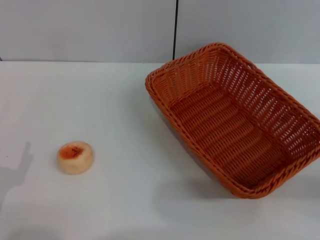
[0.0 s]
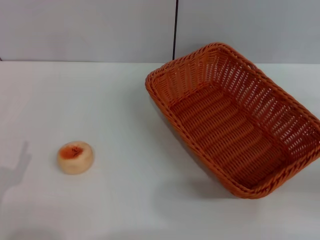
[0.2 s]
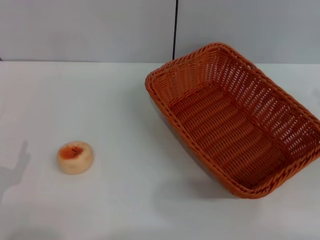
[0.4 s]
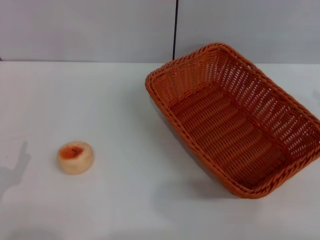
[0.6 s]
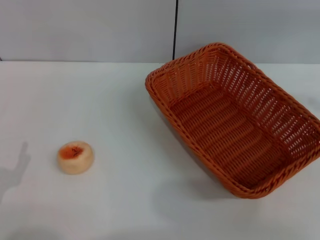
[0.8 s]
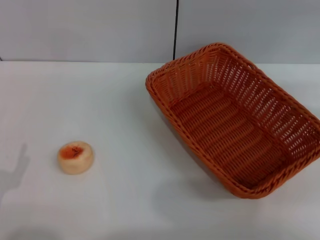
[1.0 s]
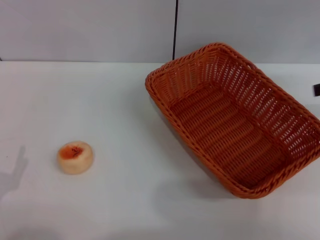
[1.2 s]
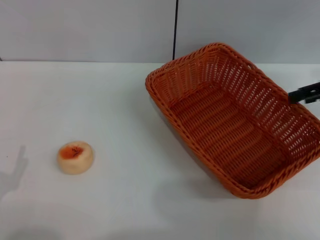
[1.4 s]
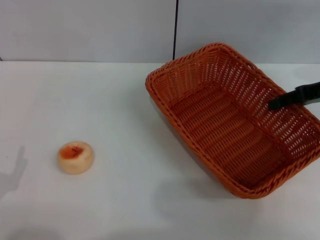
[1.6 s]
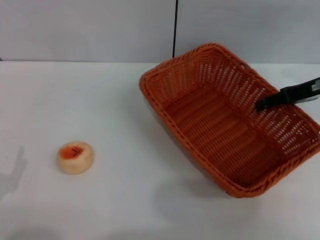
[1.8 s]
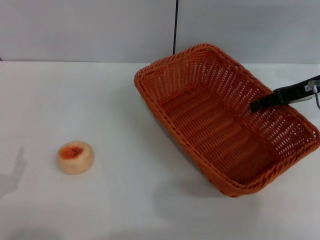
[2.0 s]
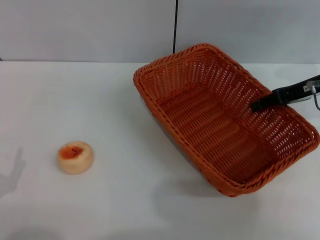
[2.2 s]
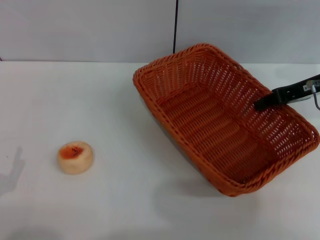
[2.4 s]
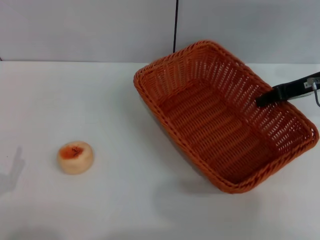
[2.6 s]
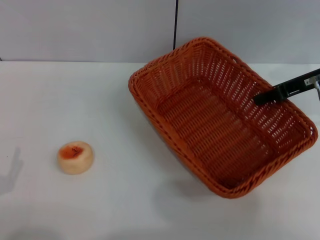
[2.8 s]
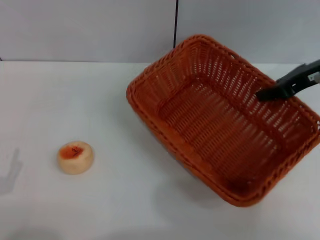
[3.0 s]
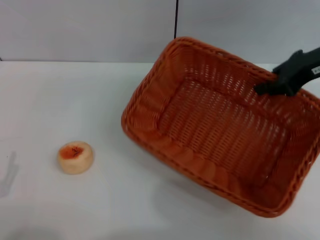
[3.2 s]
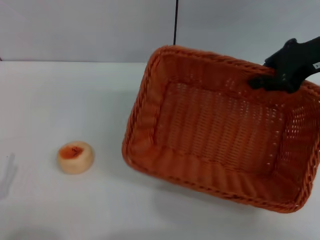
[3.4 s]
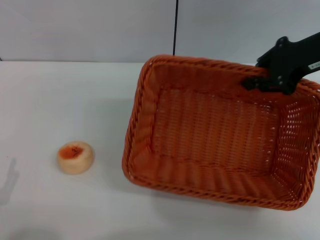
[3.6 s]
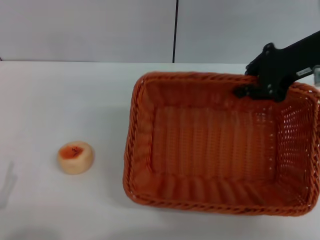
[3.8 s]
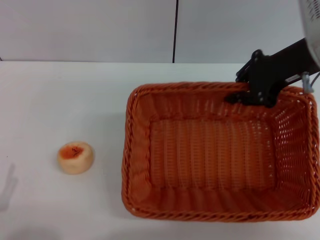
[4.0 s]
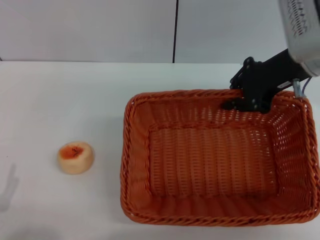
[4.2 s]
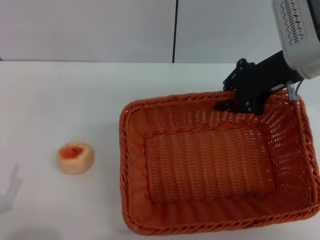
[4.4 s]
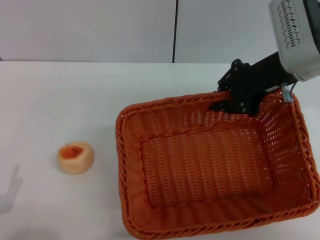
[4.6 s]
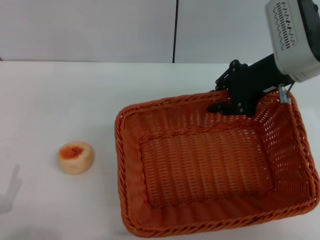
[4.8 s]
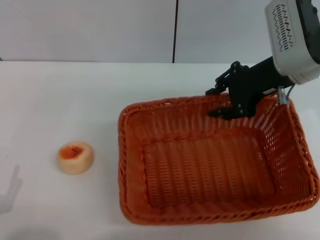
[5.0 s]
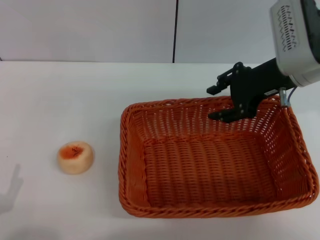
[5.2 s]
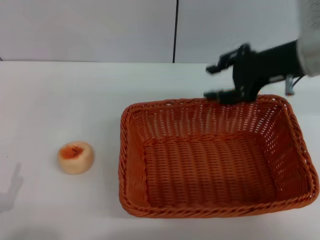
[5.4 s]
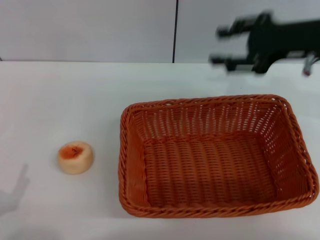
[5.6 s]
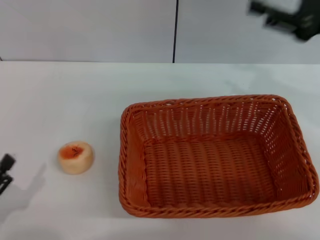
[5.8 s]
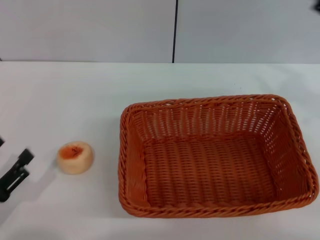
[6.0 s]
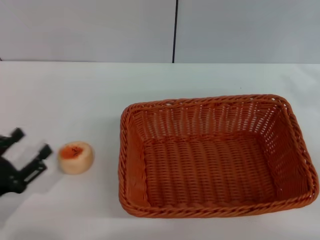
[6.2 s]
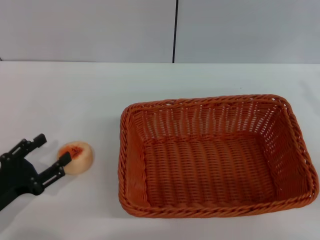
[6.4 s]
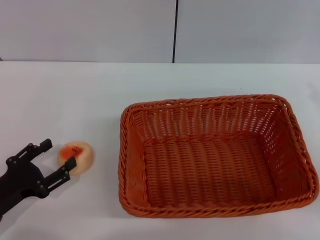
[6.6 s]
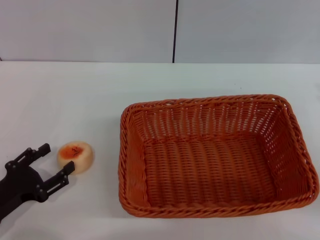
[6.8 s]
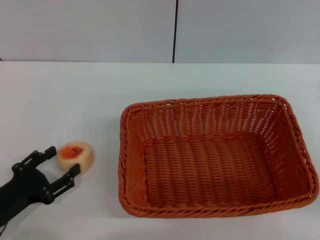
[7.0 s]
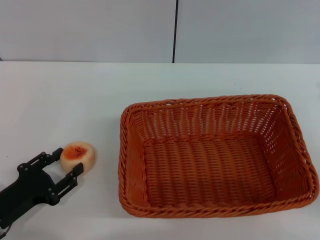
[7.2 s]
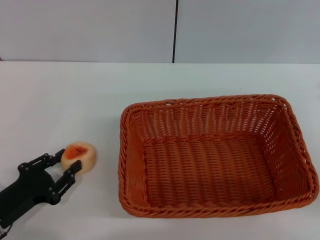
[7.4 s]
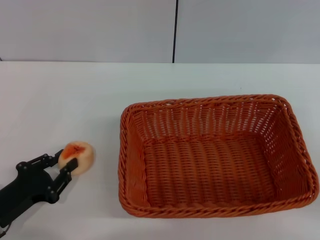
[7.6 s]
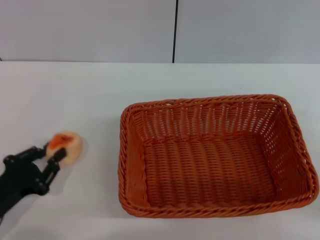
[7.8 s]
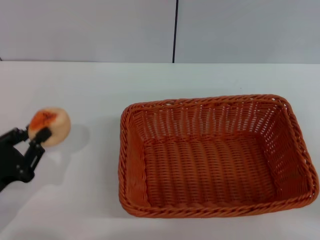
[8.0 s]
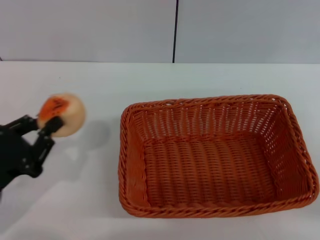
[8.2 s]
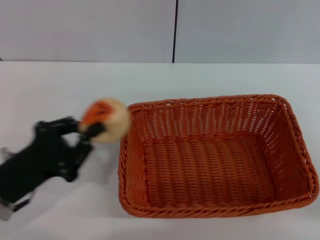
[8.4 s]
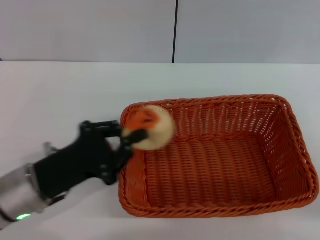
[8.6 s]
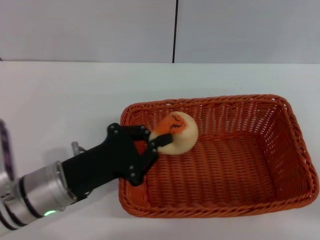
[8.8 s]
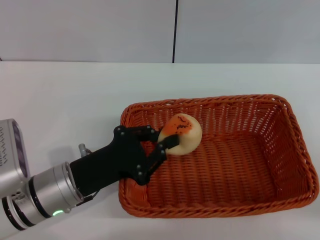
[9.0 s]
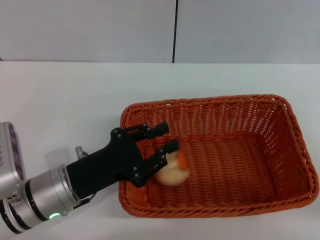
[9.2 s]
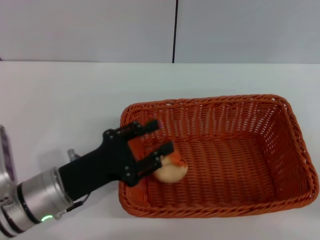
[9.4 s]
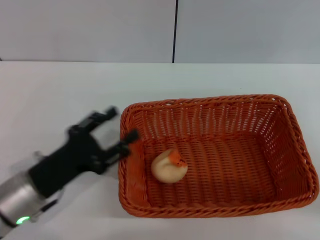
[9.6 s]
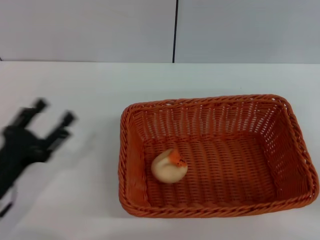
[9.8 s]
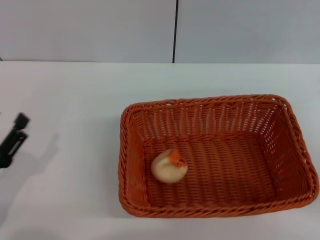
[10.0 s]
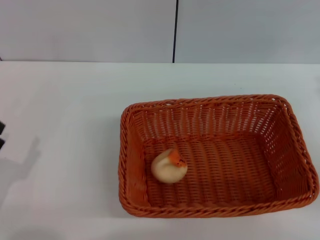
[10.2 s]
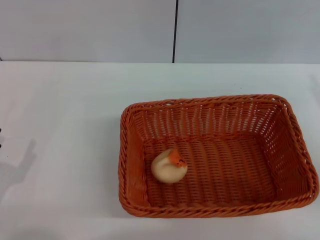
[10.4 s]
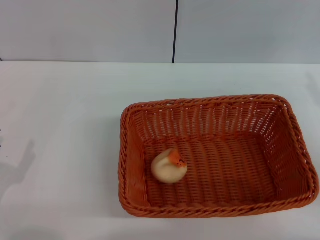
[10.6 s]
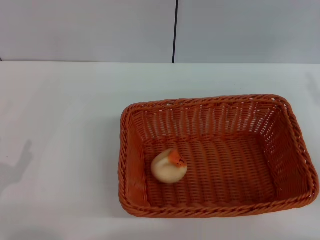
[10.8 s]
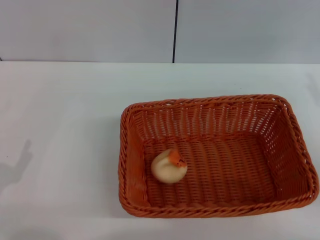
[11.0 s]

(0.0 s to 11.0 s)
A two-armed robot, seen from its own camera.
Step, 0.0 s - 1.8 s: Grasp the basket with right gripper.
Step, 2.2 s - 5.2 s: Place the basket in the center of view with right gripper.
Step, 5.4 s - 7.4 s: Grasp egg yolk pastry with left gripper.
Step, 7.8 s - 9.2 s: Place the egg yolk pastry in the basket with left gripper.
0.0 s - 1.6 s: The right gripper moves forward and upward, about 20 cm.
1.6 s - 3.2 s: The right gripper travels to the left and upward by some 10 cm, and closes up.
3.2 s - 4.8 s: The right gripper travels to the left by about 5 cm.
4.8 s - 6.2 s: The right gripper heads to the right and backward, covering approximately 20 cm, and opens; the left gripper shifts approximately 10 cm forward.
6.2 s - 7.8 s: The left gripper closes.
7.8 s - 9.4 s: The left gripper travels to the right by approximately 10 cm.
9.4 s - 11.0 s: The left gripper moves to the left and backward, approximately 15 cm, and opens.

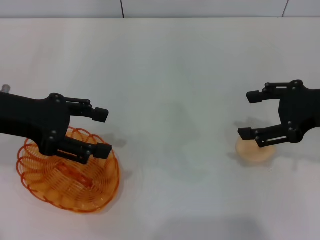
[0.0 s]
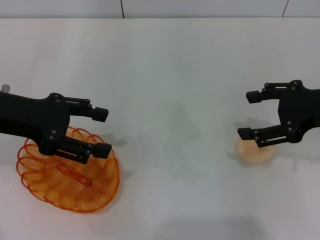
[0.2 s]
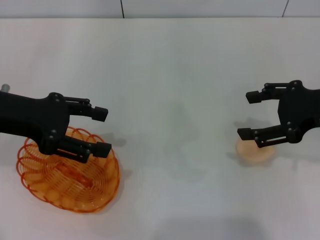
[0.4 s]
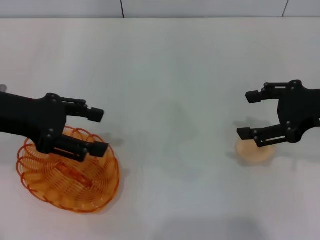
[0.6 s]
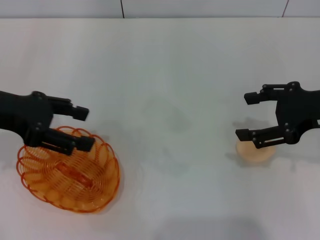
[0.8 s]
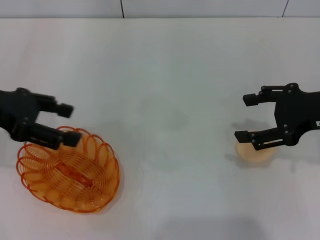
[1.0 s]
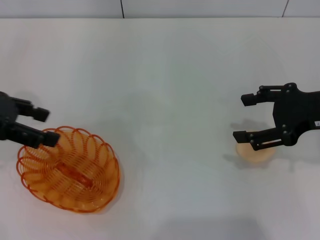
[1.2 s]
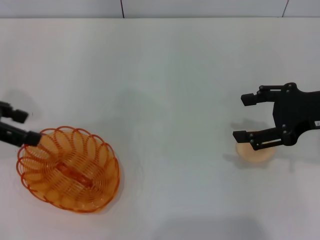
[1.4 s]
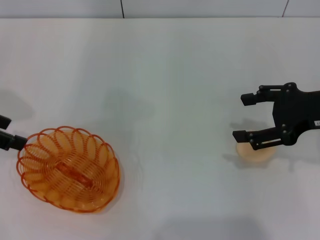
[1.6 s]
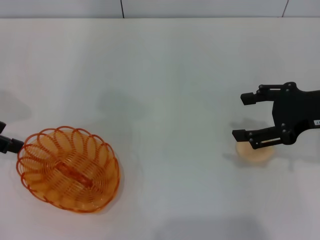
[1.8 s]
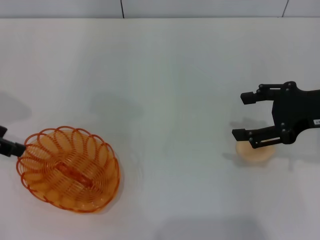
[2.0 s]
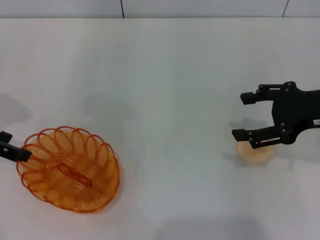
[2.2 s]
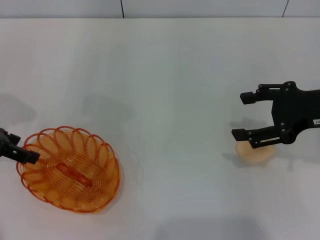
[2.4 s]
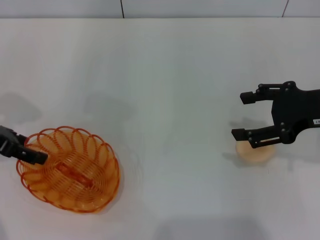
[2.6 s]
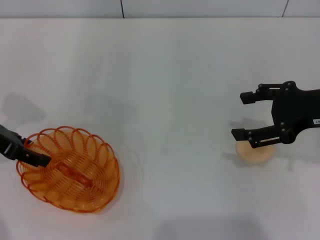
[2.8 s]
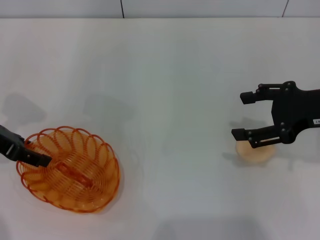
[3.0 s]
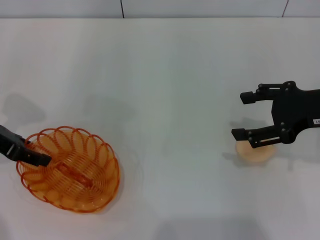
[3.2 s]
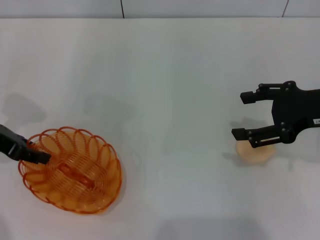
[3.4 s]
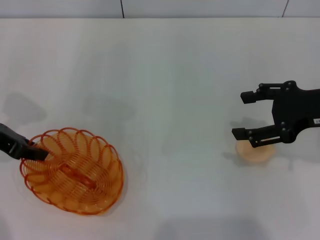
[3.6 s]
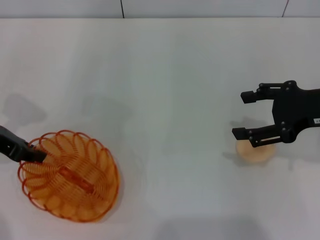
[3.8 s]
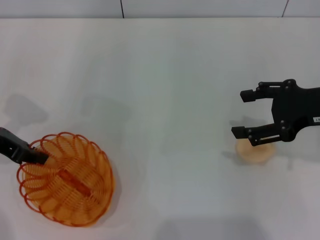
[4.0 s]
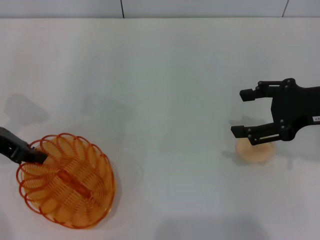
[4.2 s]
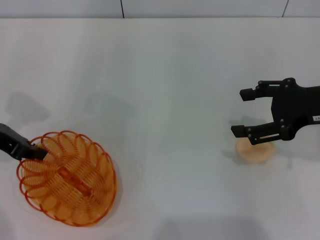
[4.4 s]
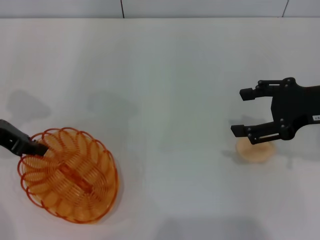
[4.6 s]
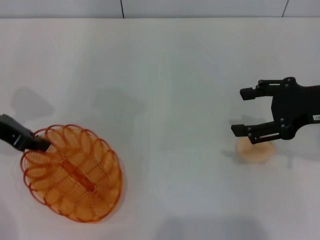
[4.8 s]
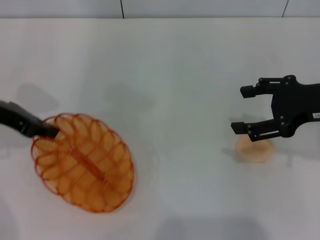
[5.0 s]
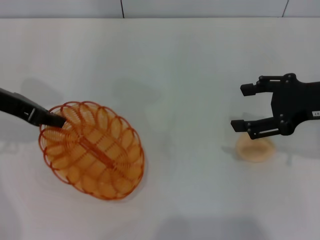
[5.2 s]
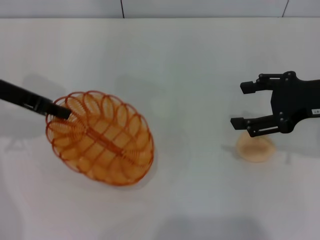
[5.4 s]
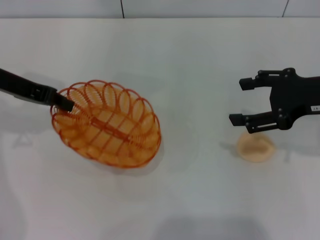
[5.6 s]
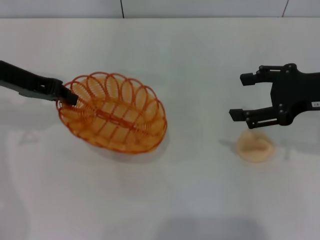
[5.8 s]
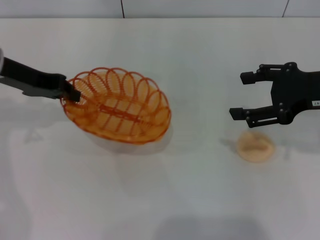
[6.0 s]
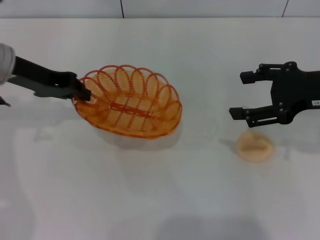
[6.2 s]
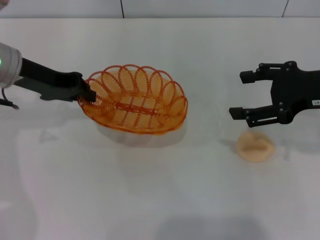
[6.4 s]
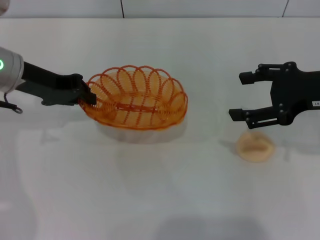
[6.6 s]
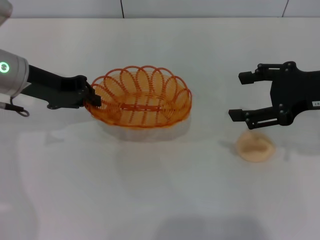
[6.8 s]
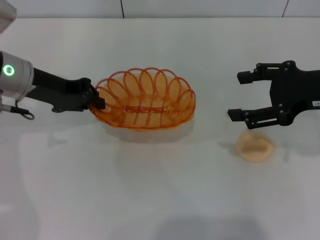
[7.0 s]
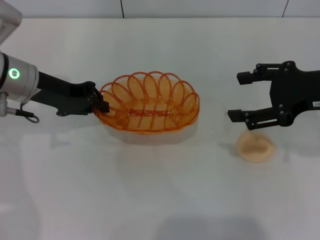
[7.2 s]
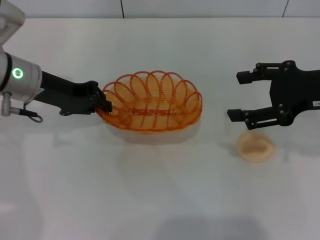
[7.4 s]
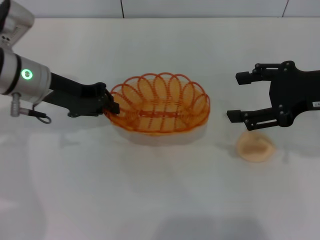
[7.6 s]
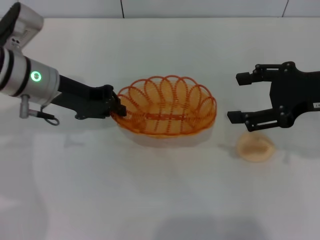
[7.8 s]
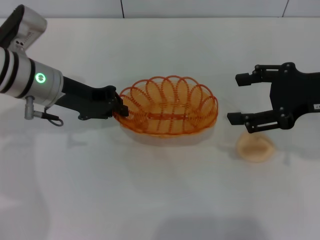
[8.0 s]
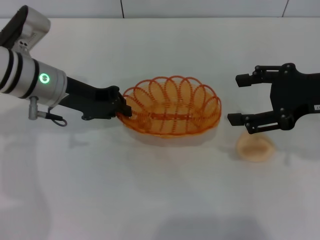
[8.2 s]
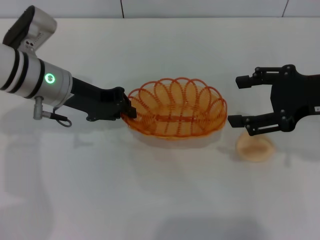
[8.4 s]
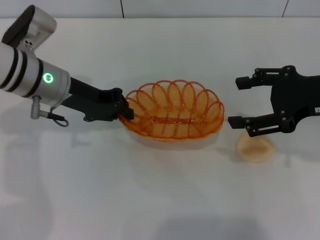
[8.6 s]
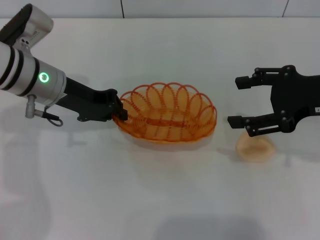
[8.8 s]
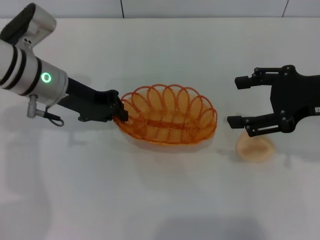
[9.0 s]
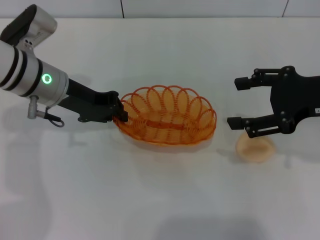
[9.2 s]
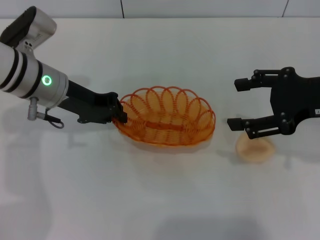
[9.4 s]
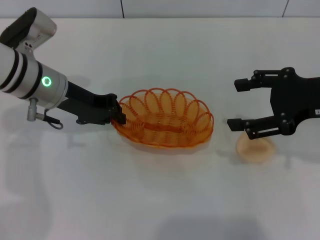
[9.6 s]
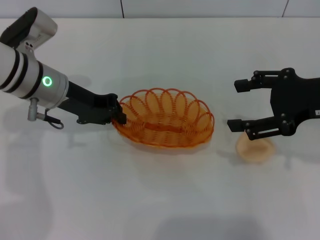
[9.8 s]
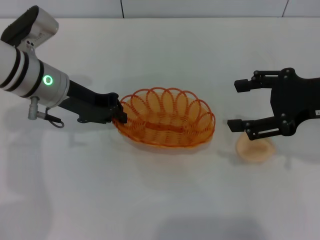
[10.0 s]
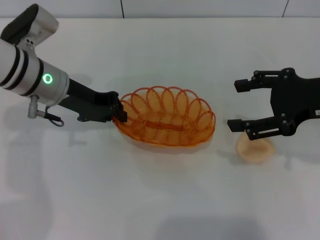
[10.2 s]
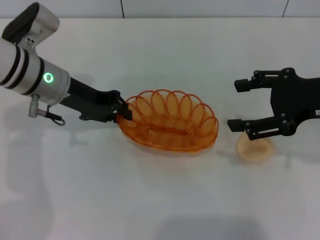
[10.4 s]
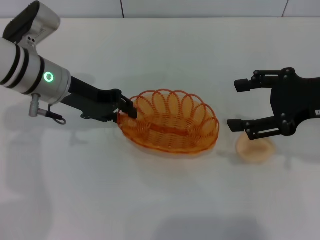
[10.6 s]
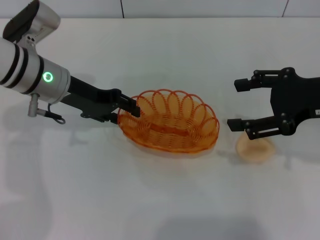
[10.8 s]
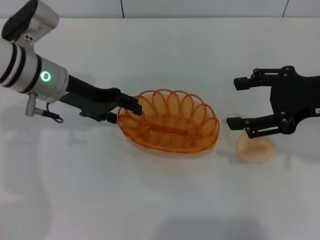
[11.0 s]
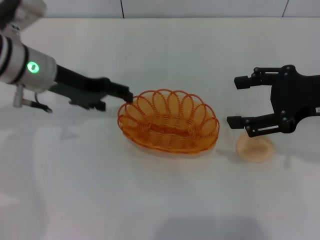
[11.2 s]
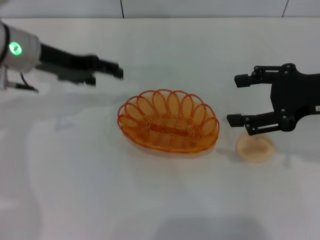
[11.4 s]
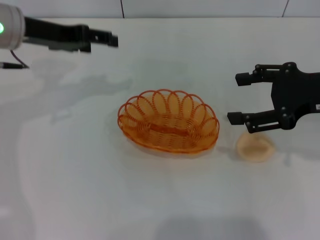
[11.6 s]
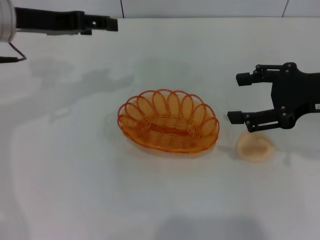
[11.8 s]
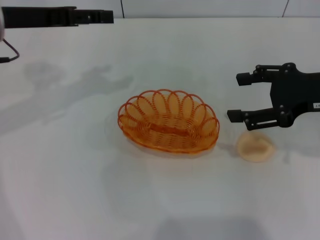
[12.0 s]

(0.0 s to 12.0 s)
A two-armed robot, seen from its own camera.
Step, 0.0 s - 6.6 s: Pick up the basket with the left gripper.
Step, 7.0 s - 11.4 s: Place the basket in the center of view with the left gripper.
0.0 s - 1.6 s: The left gripper moves to the left, some 5 cm.
1.6 s - 3.0 s: The left gripper is displaced downward by roughly 5 cm.
3.0 s - 4.4 s: The left gripper closes up.
4.4 s - 6.0 s: The left gripper shifts by some 10 cm.
6.0 s - 7.6 s: The left gripper changes place by some 5 cm.
7.6 s - 9.0 s: The grippers make only small movements.
9.0 s - 10.4 s: Both grippers stay about where they are.
10.4 s - 12.0 s: The left gripper travels upward and to the left by about 10 cm, and opens its fingers.
